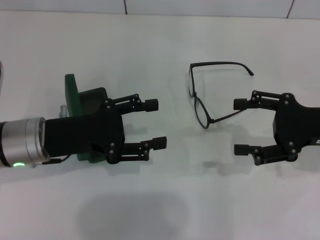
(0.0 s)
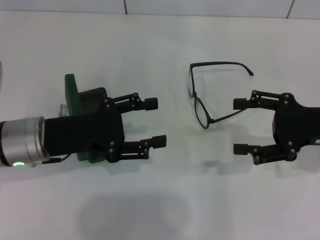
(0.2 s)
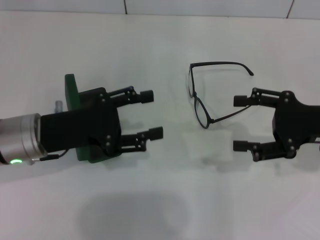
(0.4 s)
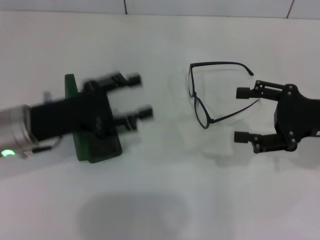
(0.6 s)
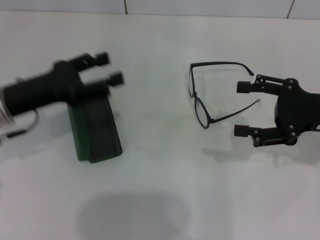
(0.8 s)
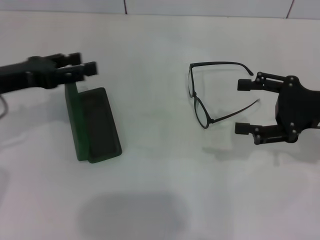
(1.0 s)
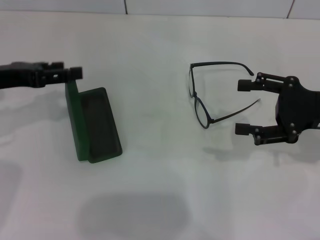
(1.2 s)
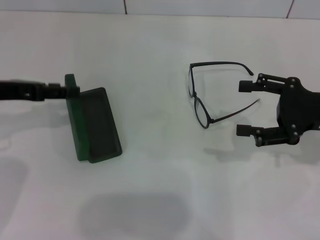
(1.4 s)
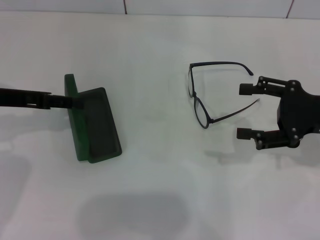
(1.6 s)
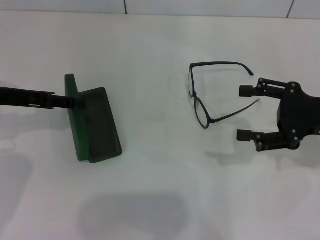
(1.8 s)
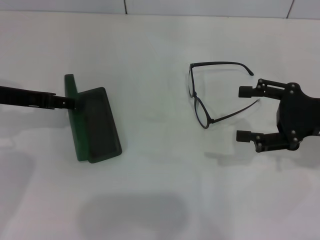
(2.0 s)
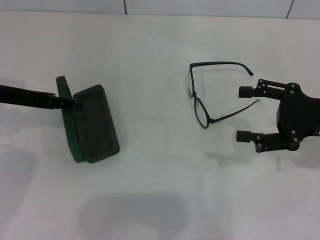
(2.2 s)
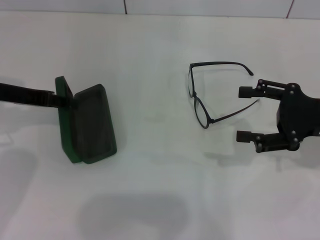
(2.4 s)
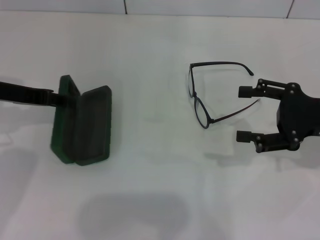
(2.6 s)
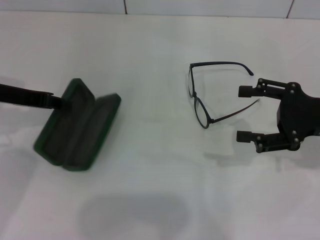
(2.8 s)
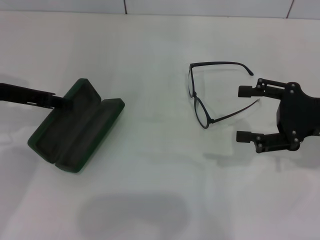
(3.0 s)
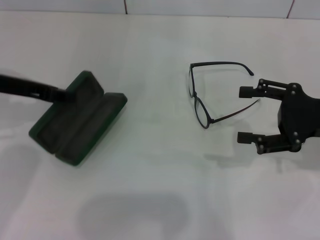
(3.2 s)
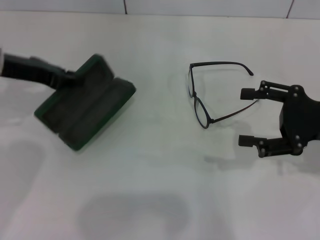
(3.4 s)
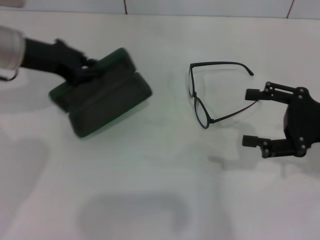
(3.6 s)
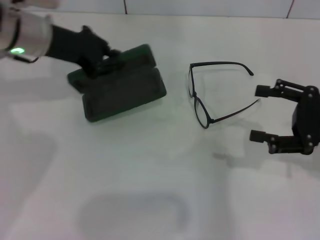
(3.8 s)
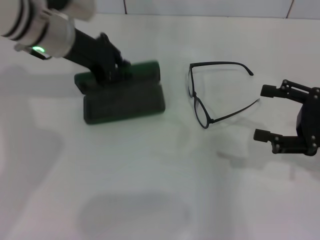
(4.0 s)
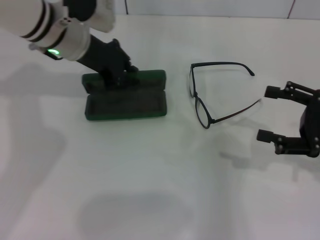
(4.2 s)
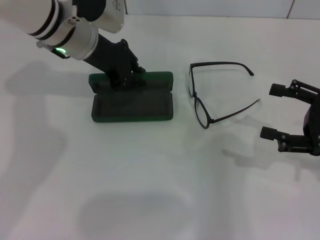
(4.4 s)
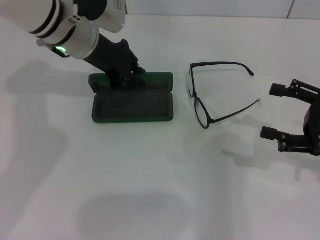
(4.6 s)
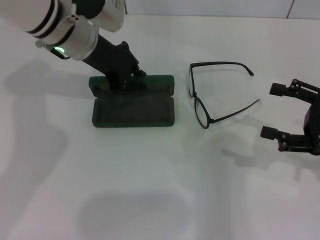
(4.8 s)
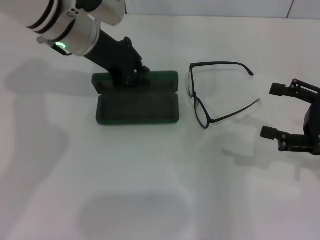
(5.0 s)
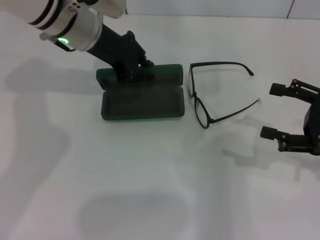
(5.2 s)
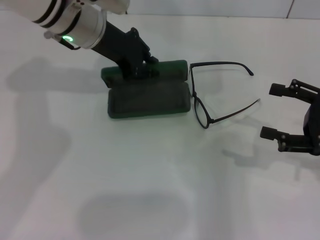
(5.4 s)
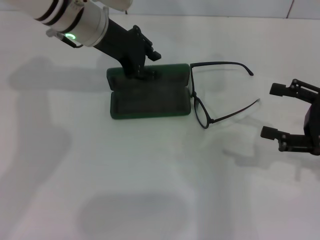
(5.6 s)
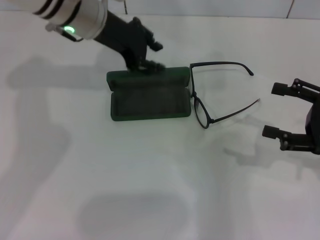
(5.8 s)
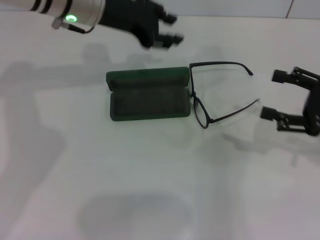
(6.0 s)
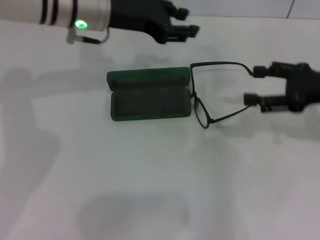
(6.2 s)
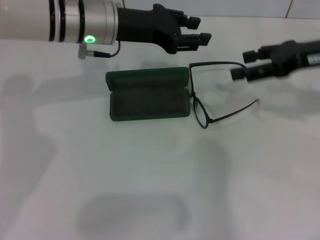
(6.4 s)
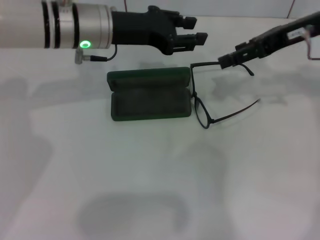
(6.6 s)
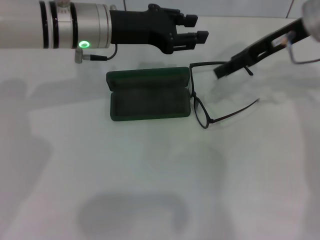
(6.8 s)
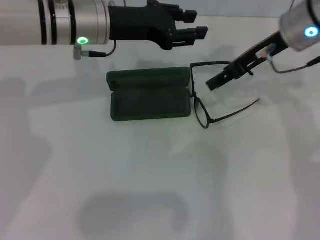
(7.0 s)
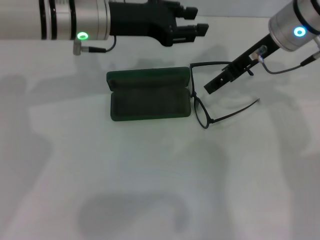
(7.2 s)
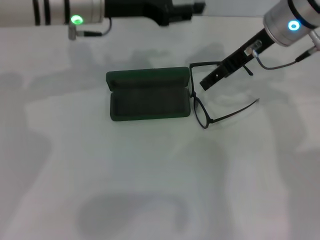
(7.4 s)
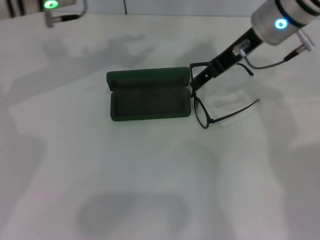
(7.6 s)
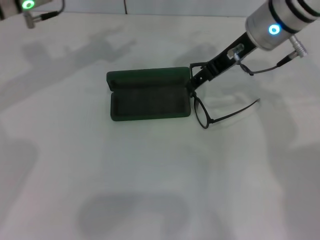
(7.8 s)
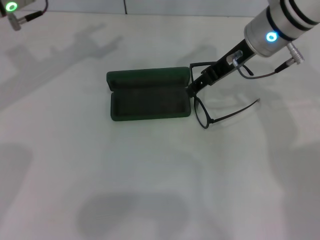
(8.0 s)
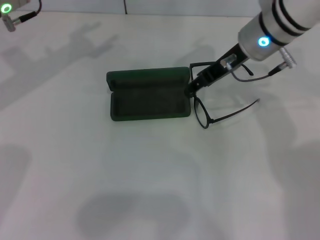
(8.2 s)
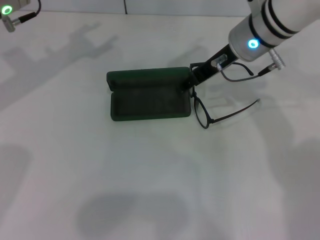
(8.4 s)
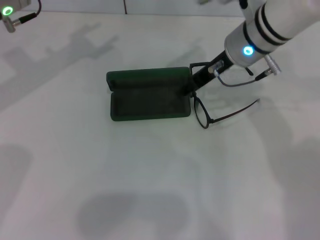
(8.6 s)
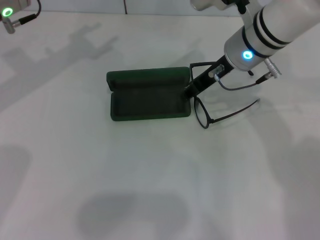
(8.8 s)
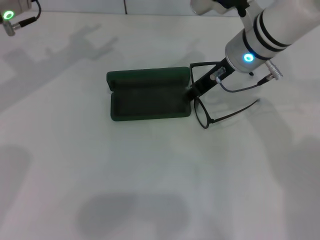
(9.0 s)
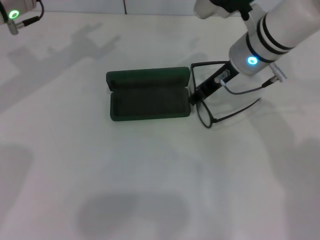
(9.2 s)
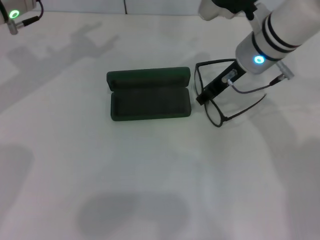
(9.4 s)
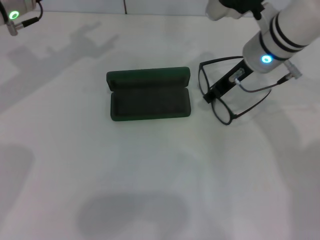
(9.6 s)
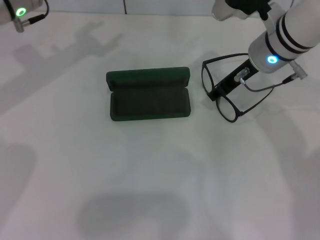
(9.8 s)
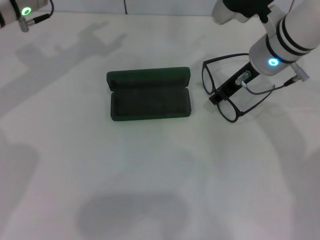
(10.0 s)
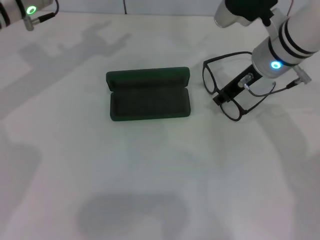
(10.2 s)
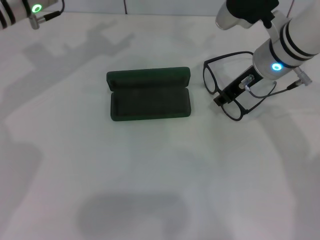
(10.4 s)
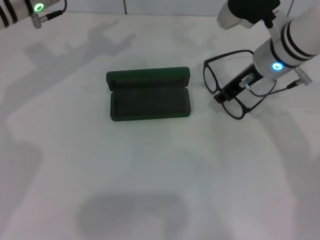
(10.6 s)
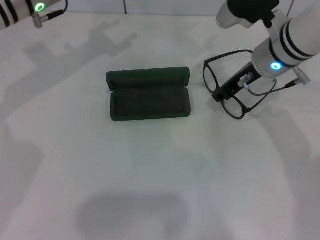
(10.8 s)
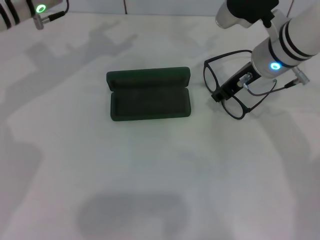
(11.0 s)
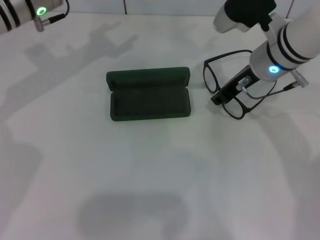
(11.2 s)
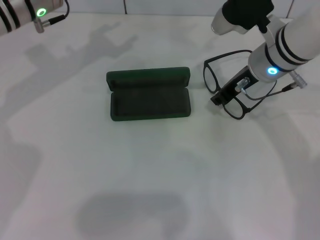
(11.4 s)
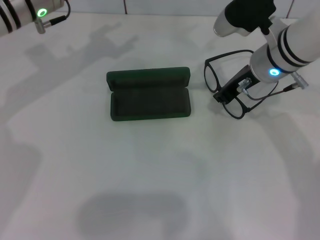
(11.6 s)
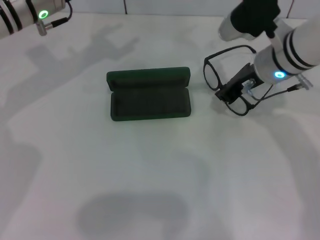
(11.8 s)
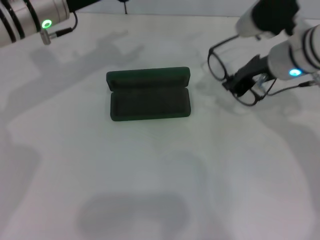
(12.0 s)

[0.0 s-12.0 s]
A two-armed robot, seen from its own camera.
Step, 0.0 to 2.8 s: Grab the glasses case with your left hand.
Step, 3.2 to 5.6 s: Place the glasses case in the center of the table with your left hand.
Step, 5.8 to 11.4 s: Grab the eyeglass frame with your right hand.
0.0 to 1.6 s: The left gripper is displaced to the left and upward by roughly 10 cm.
1.6 to 3.0 s: The left gripper closes up.
3.0 to 4.4 s: The left gripper shifts approximately 15 cm to the right and forward.
6.0 to 7.6 s: The right gripper shifts about 25 cm to the left, forward and upward.
7.6 to 9.0 s: The left gripper heads to the left, covering roughly 5 cm. Meanwhile the right gripper travels downward by roughly 5 cm.
9.0 to 10.4 s: The grippers make only small movements.
10.4 to 12.0 s: The grippers make only small movements.

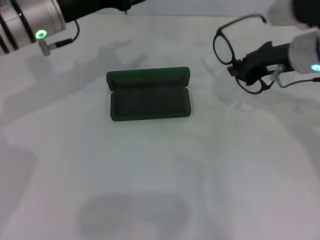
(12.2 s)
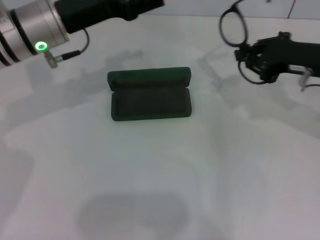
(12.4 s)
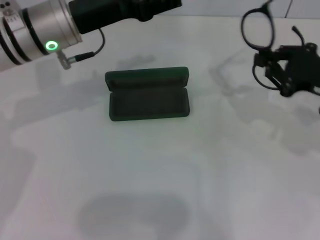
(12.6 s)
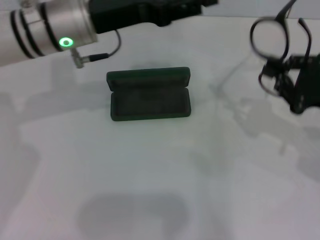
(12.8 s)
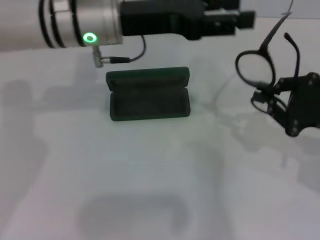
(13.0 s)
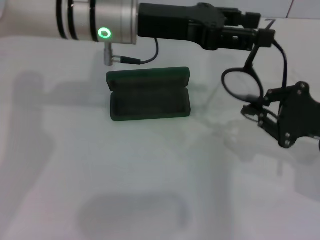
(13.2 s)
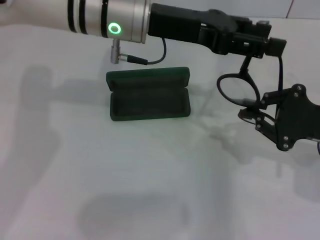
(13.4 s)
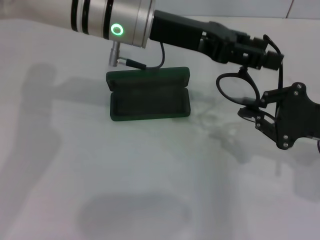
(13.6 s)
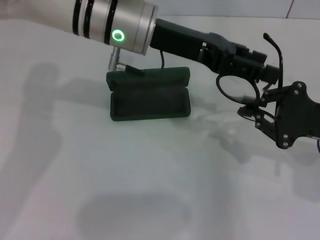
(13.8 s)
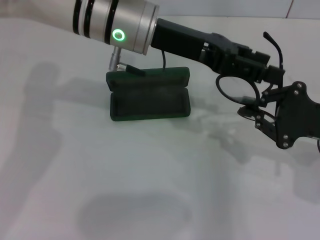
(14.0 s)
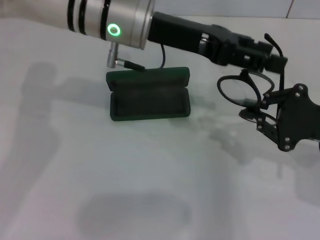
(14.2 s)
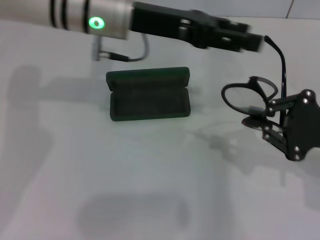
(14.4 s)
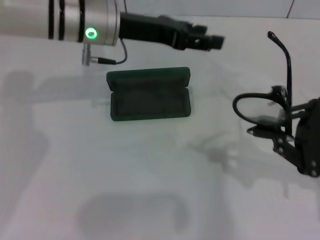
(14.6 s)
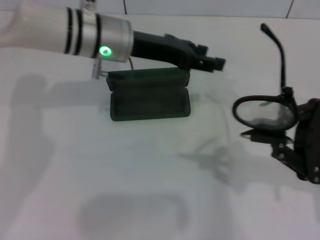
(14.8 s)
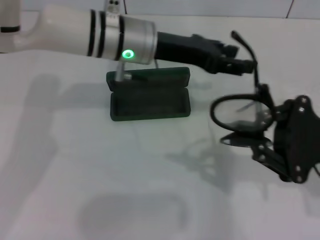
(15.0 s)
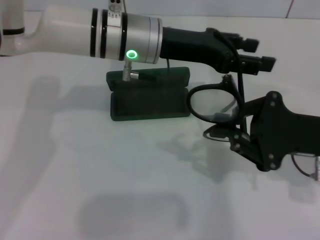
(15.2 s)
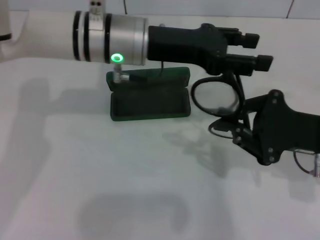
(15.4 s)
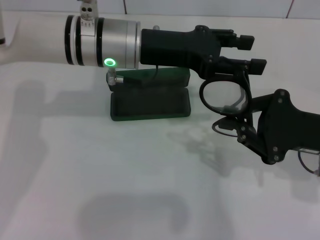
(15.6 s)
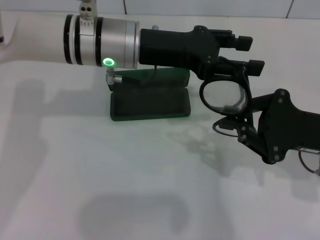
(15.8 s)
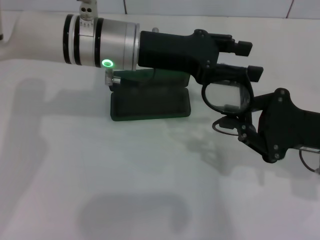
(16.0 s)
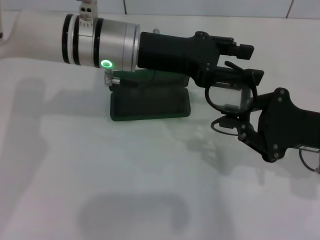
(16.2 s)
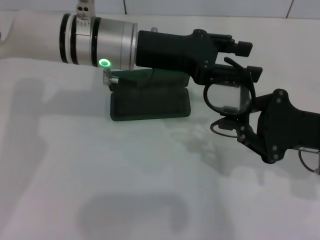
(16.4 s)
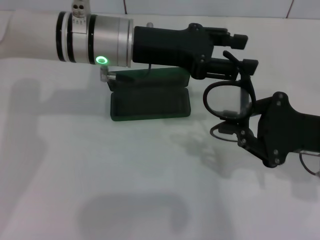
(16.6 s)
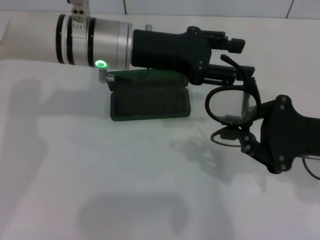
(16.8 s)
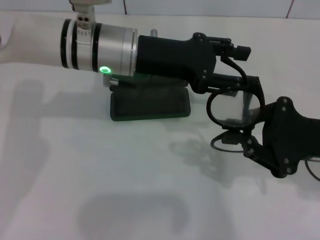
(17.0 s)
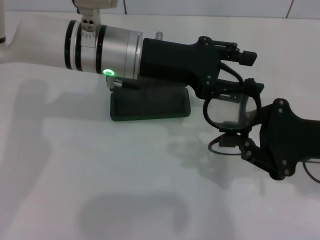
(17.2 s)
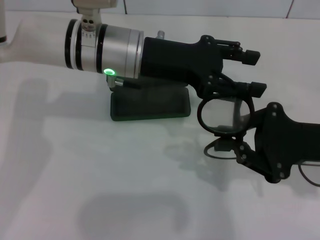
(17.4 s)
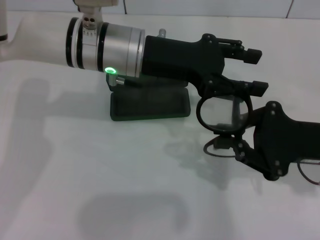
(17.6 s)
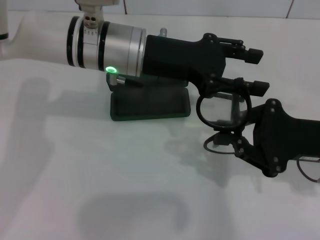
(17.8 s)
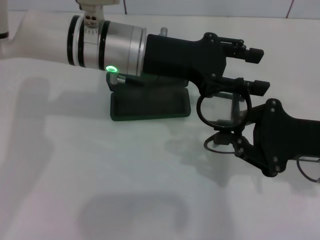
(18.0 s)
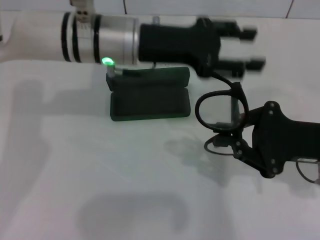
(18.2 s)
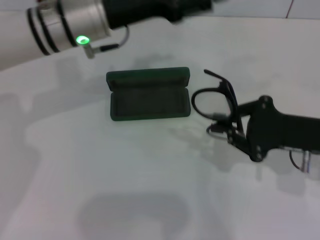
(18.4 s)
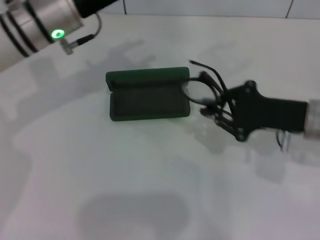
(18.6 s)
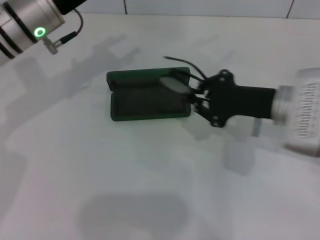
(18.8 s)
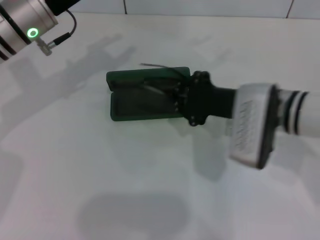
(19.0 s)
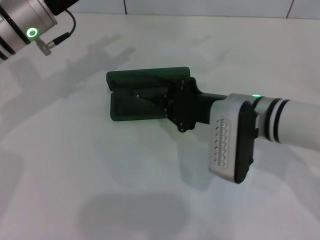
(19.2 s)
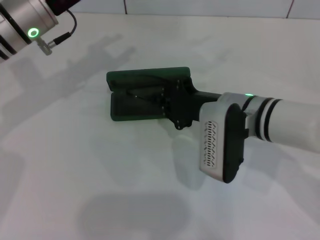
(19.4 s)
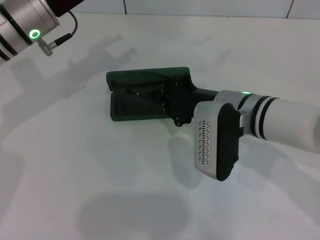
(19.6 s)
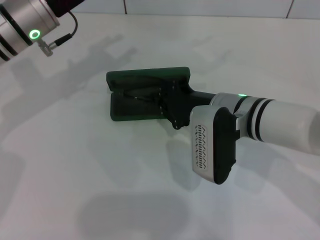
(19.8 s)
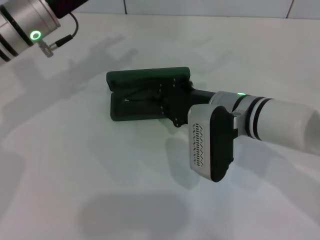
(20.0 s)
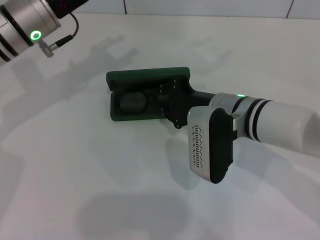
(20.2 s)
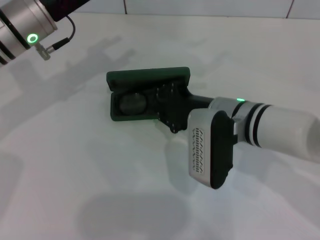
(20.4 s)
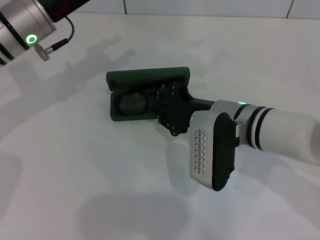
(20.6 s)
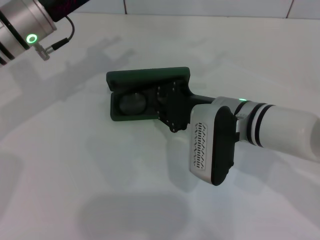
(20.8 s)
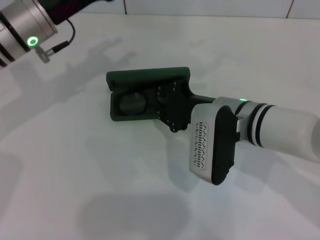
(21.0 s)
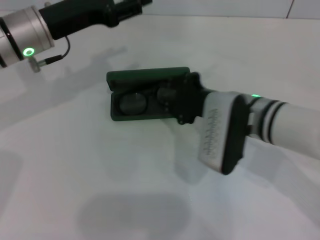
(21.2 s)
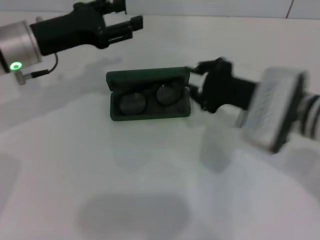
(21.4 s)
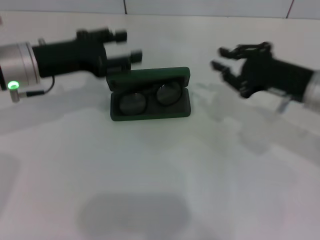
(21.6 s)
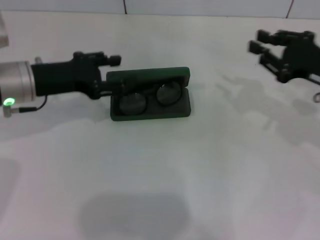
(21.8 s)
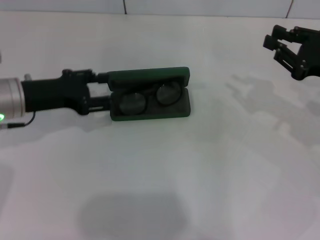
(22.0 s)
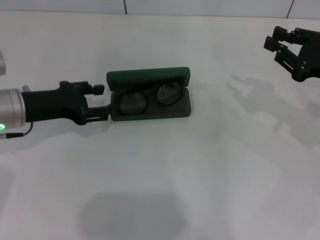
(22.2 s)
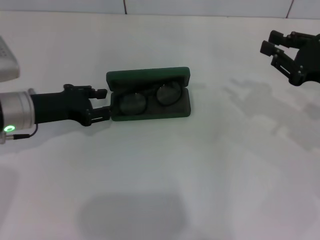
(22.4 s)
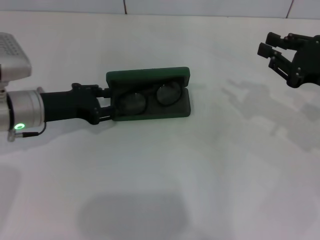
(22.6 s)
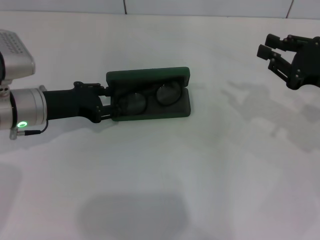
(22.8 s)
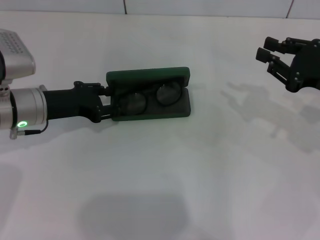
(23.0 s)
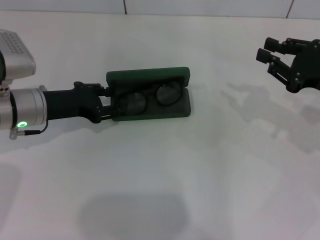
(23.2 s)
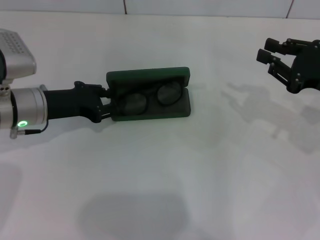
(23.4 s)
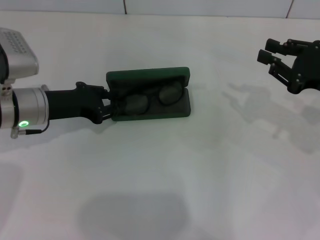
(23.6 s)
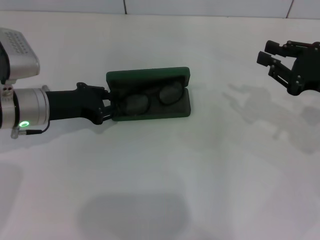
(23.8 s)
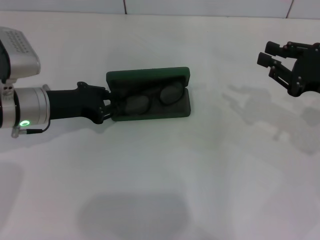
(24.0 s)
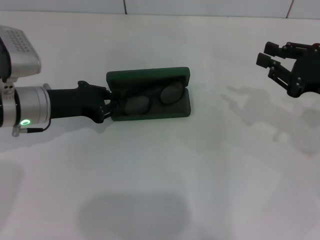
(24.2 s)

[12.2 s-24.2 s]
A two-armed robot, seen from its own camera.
Step, 12.2 to 17.2 s: Fold the frame with your left hand.
Step, 17.4 to 20.2 s: Put the glasses into the case with your right hand.
12.2 to 13.8 s: The right gripper is displaced backward, to the right and downward by about 15 cm; the left gripper is displaced to the right by about 10 cm.
15.2 to 18.2 s: The grippers stay close to where they were, moving slightly.
18.2 to 19.8 s: Both grippers move to the left, roughly 10 cm.
19.8 to 21.2 s: The grippers move only a little.
21.2 to 22.6 s: The left gripper travels downward by some 10 cm. Meanwhile the right gripper is displaced to the right by some 20 cm.
22.6 to 24.2 s: The left gripper closes its fingers.
